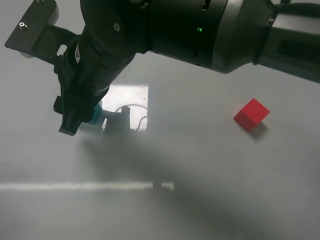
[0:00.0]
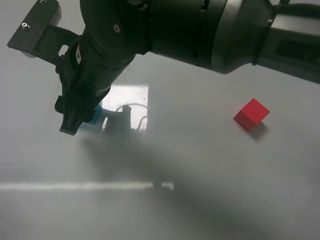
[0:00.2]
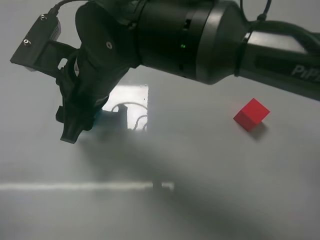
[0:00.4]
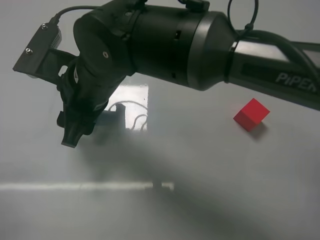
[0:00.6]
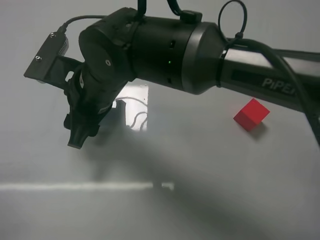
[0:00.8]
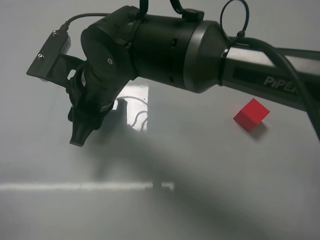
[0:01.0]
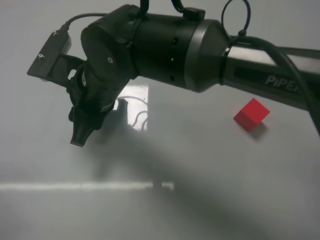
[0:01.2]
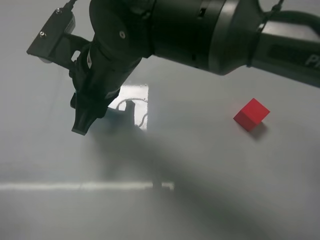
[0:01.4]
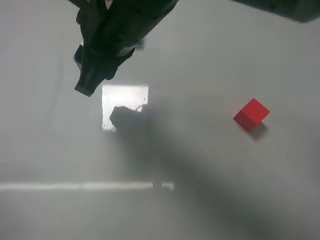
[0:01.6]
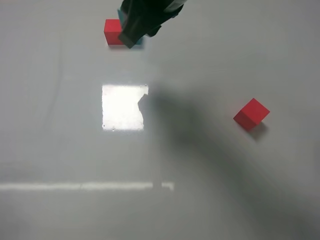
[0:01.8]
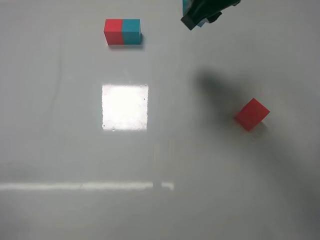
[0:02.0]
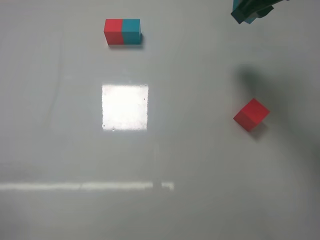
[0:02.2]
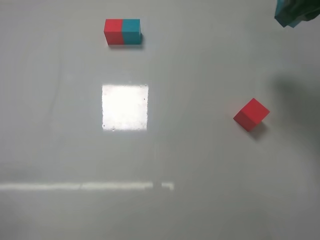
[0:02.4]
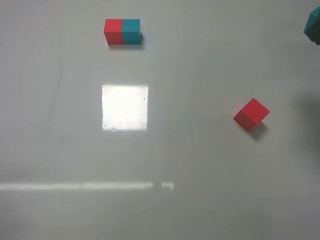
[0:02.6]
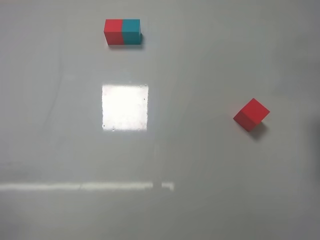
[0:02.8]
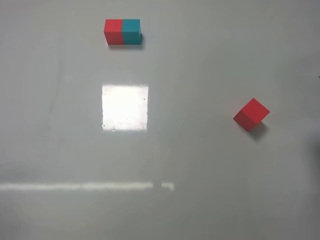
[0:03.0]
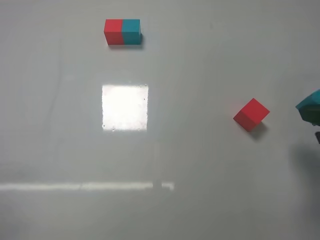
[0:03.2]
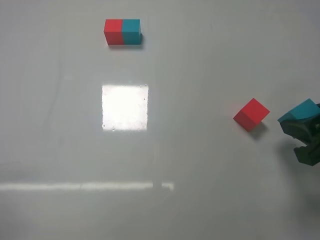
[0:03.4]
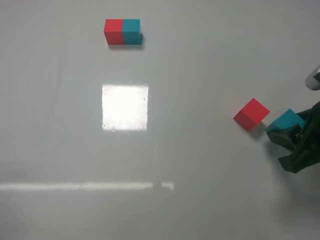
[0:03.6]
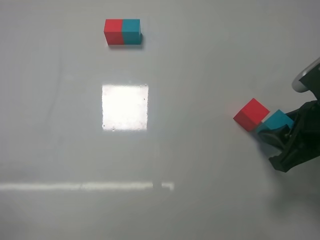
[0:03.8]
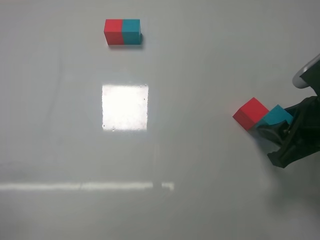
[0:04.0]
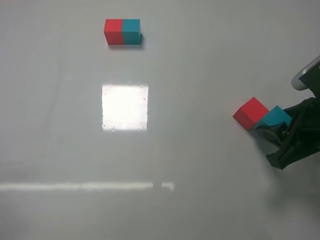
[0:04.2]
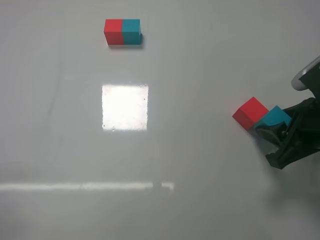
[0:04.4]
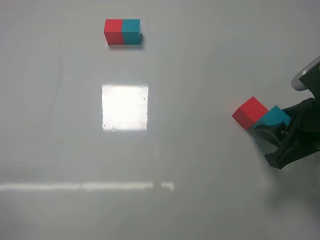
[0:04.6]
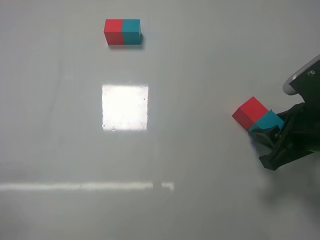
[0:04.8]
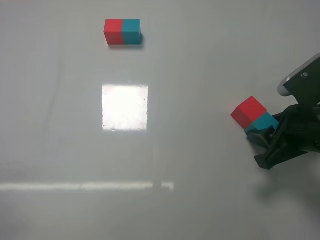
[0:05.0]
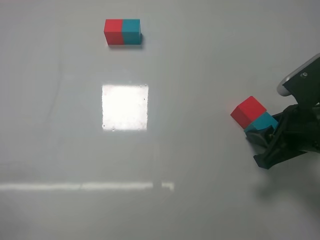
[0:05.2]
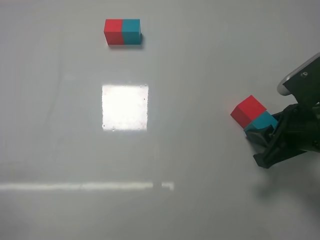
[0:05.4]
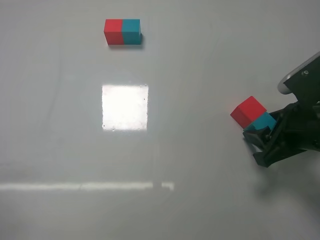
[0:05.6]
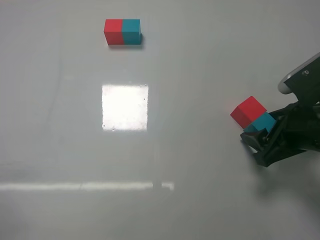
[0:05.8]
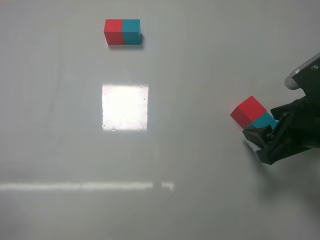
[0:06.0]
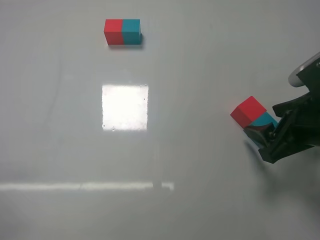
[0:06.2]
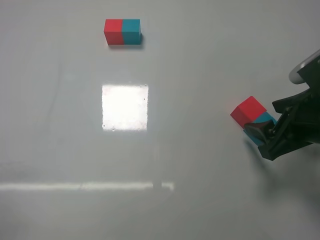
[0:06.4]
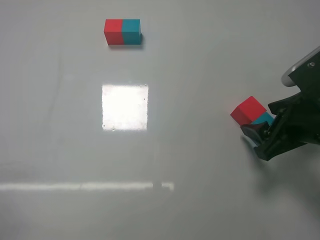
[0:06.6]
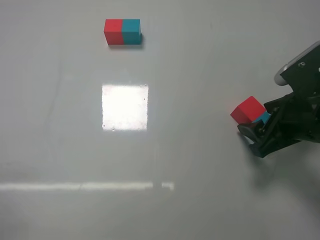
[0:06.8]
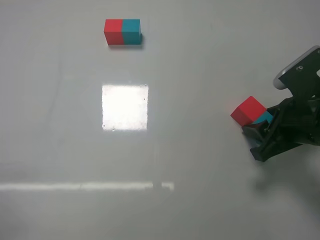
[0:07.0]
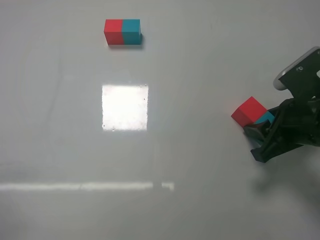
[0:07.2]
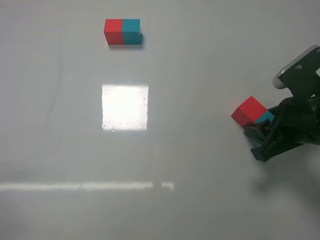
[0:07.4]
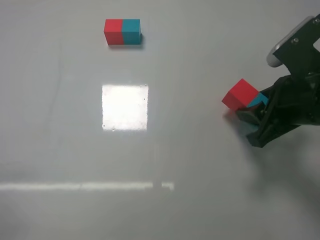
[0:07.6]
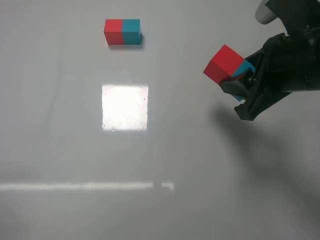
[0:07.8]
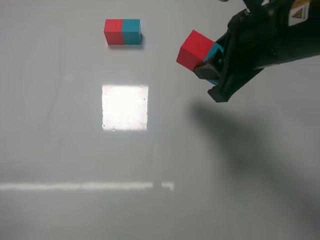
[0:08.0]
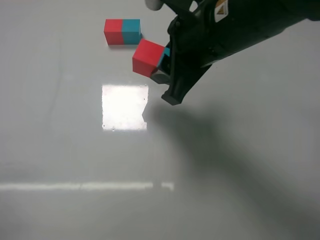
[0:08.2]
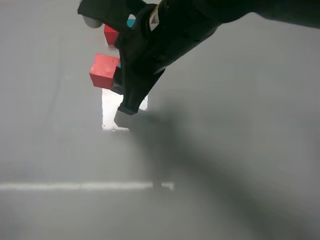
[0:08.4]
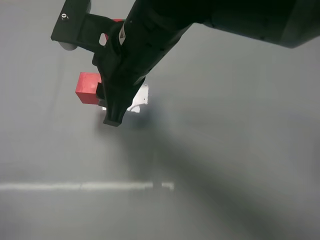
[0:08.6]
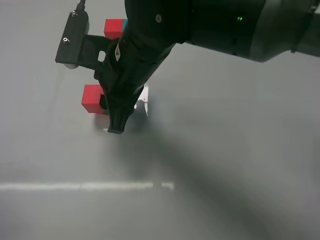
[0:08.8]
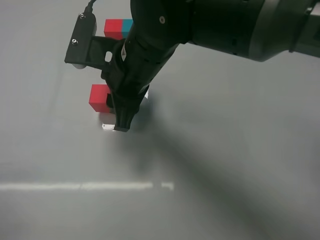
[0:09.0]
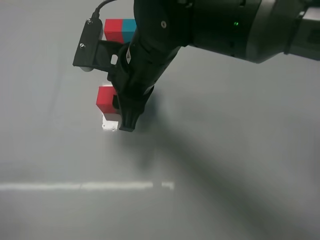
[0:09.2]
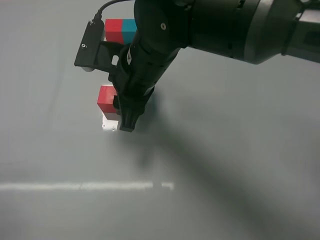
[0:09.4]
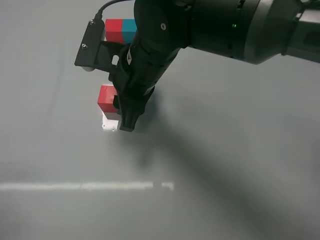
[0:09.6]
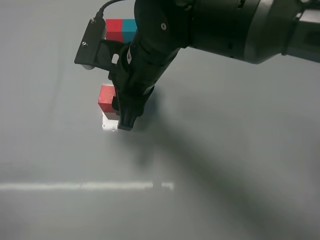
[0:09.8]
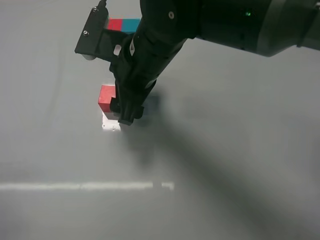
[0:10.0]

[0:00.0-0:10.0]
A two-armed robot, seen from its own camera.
Task of the whole recording: According to the building block template in front, assemble the scattered blocks together.
Step, 0:01.2 to 0:06.0: Put the blue cube on the right of the red cube with the right gripper.
Step, 0:06.2 to 0:10.0: Put the red cube and blue cube in the center of the table with the right gripper.
0:00.0 to 0:01.4: The right gripper closes up.
0:01.4 to 0:02.8: The right gripper shifts about 35 cm to the right.
0:02.8 to 0:04.2: The right gripper heads downward, covering about 15 cm.
0:04.2 to 0:05.8: The right gripper opens up.
0:05.8 to 0:07.2: The right gripper closes.
0:07.2 to 0:08.6: The right gripper heads to the left, covering about 25 cm.
0:08.6 to 0:10.0: The right gripper opens.

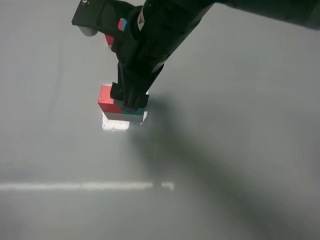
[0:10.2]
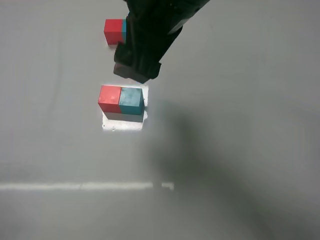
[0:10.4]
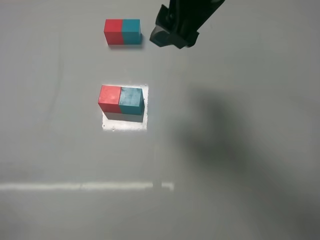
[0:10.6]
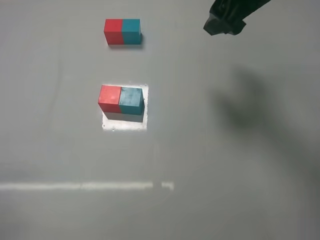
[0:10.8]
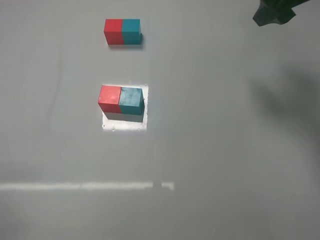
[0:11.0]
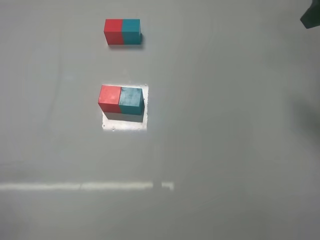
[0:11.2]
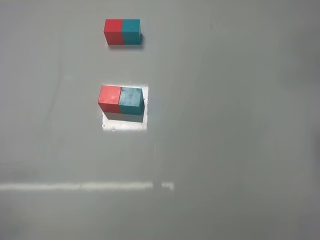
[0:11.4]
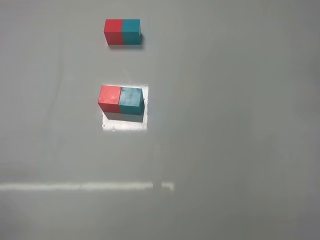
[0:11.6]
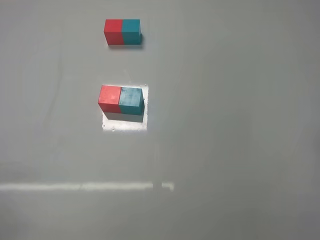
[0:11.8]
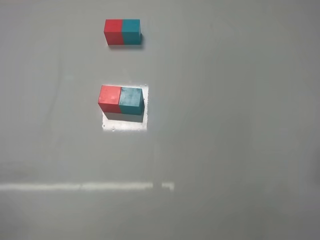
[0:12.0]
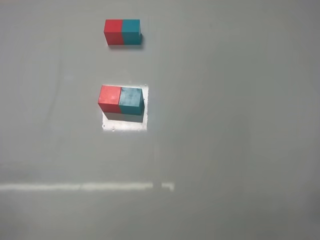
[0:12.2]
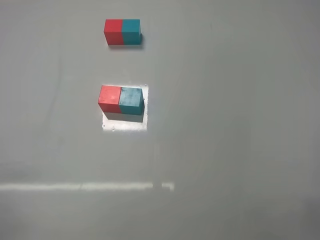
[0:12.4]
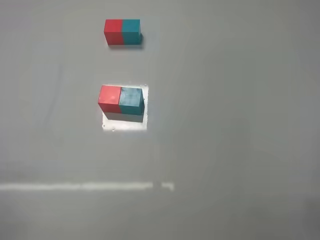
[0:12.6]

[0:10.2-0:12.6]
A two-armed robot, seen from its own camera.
Task of the whole recording: According to the building block template in front, assemble the scattered blocks together.
0:10.2 to 0:11.4: The right gripper heads to the right, covering approximately 30 cm.

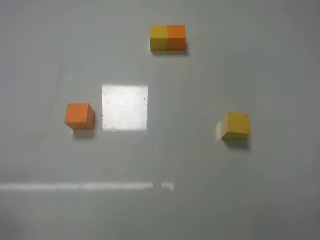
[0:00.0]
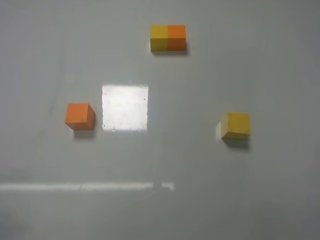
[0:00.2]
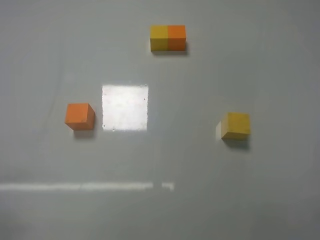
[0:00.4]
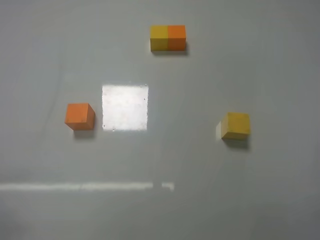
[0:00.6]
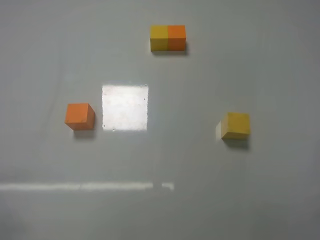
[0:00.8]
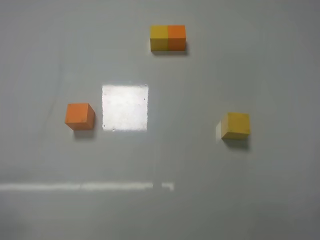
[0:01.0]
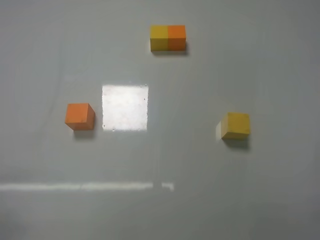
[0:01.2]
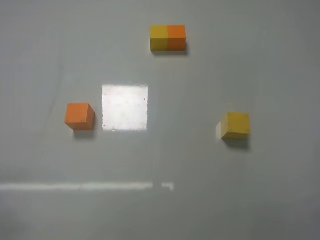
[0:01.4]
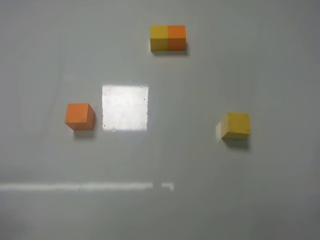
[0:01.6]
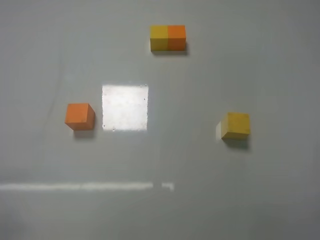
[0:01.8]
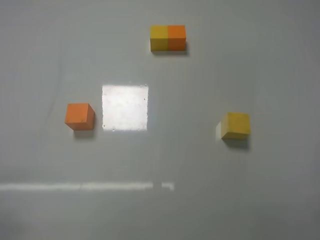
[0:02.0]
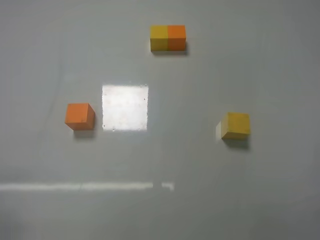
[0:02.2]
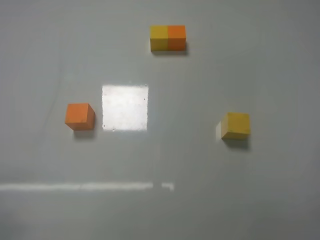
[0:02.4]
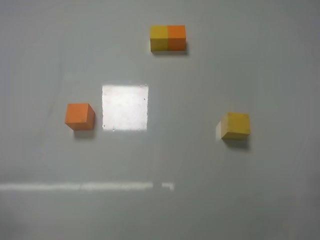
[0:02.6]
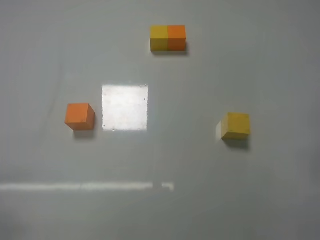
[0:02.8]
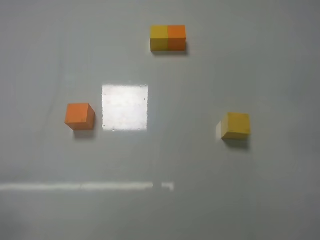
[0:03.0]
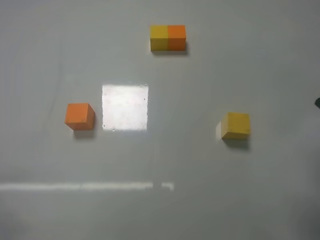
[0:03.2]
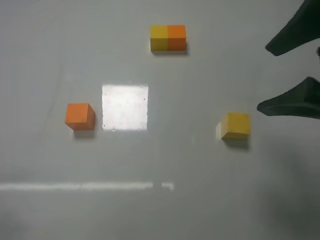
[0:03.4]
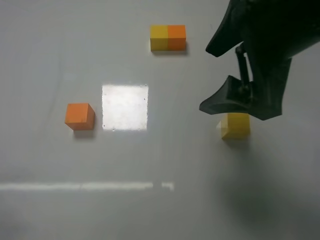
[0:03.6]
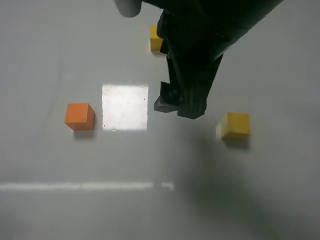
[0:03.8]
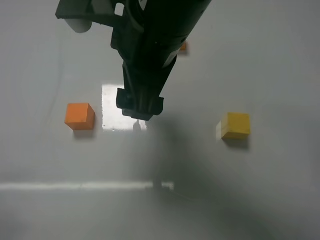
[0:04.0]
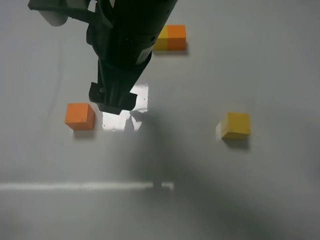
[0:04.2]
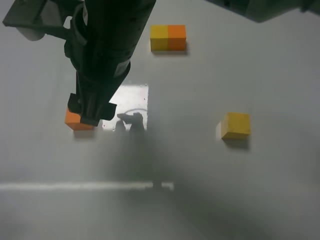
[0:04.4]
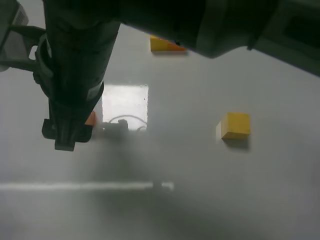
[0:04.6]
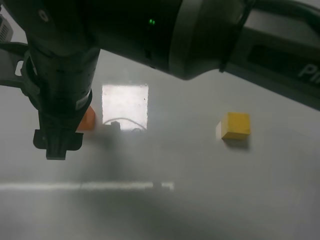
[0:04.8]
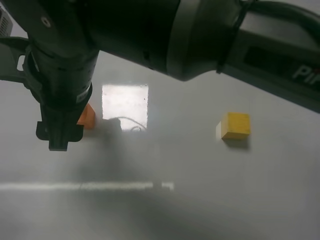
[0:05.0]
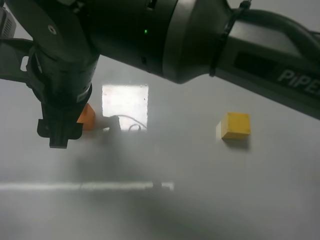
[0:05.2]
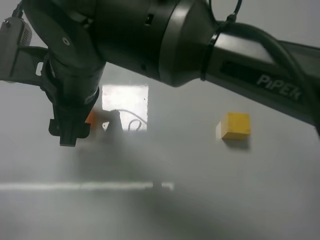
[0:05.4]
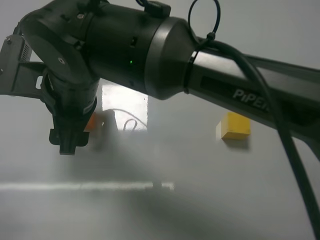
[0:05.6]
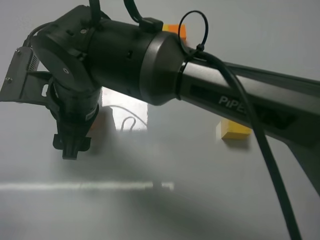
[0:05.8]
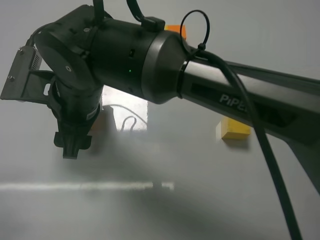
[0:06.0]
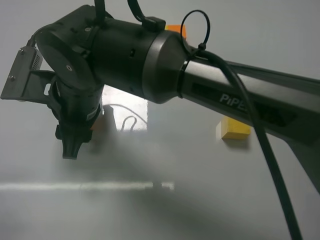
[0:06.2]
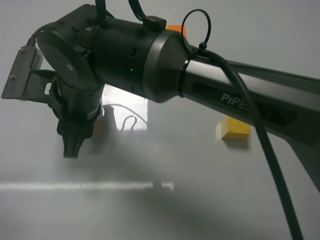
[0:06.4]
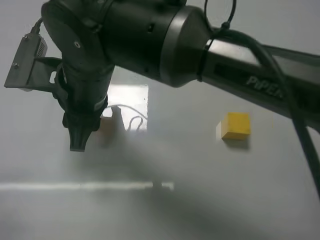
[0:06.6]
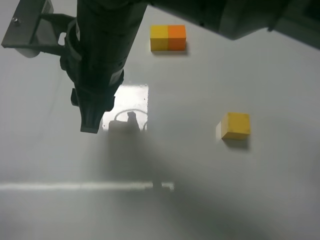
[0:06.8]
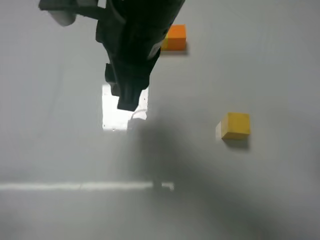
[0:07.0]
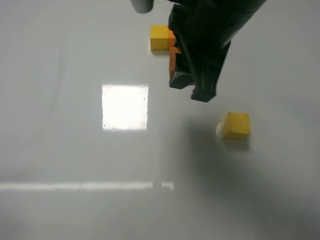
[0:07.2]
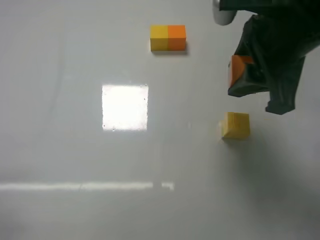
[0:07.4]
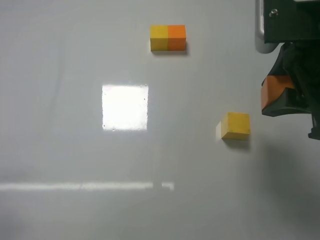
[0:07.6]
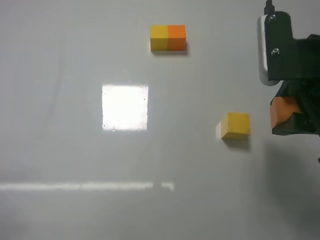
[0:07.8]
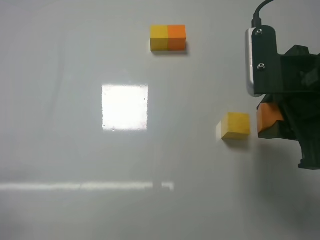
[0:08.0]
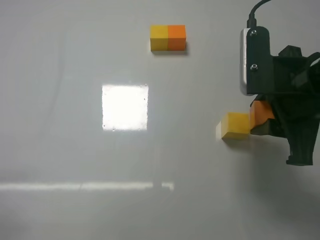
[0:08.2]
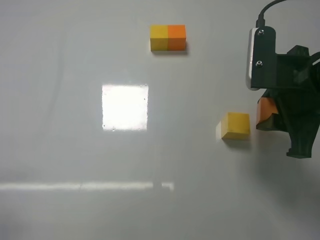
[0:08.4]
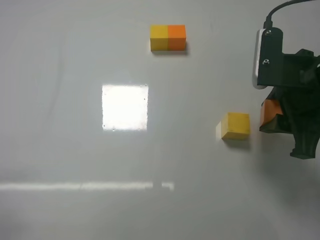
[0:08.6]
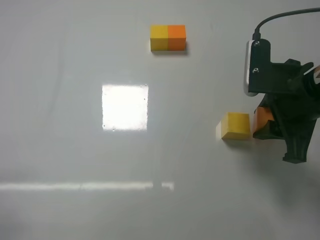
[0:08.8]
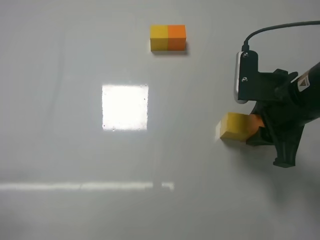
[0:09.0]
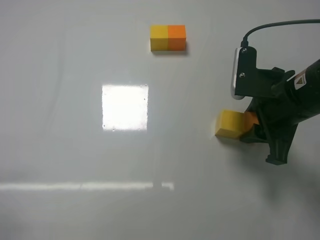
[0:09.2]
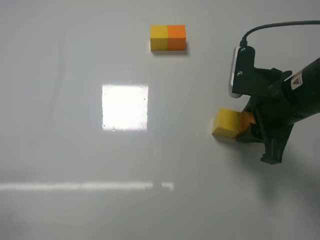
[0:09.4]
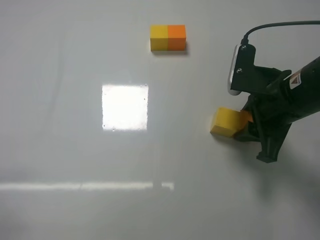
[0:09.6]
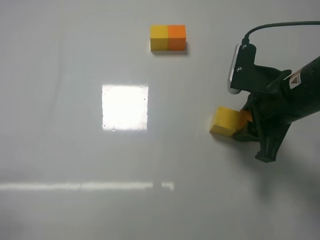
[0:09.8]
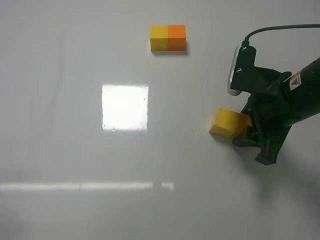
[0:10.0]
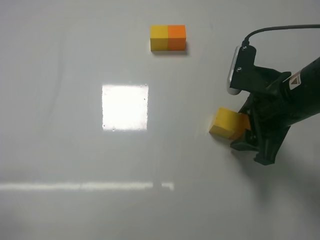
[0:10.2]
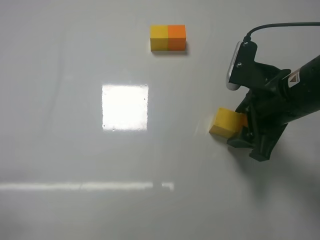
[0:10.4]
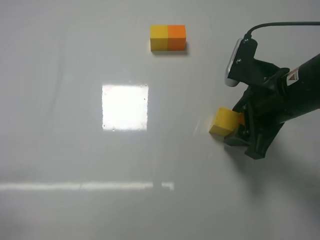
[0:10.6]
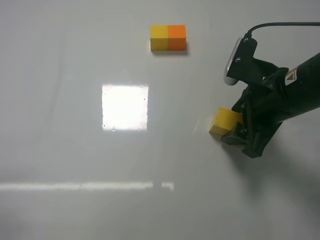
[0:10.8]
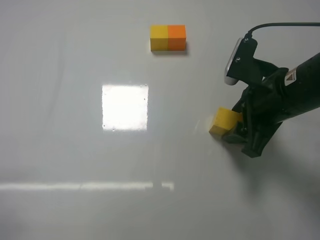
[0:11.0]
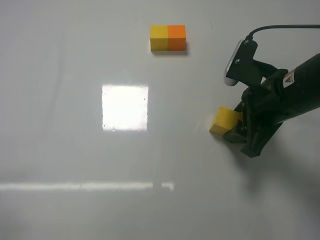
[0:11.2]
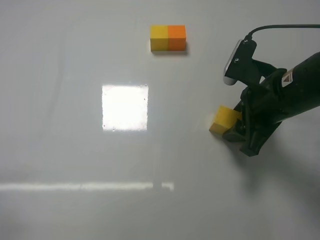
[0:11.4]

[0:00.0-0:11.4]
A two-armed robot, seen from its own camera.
Task of the whole recording: According to the building block template in front, assemble the scattered blocks together.
Step, 0:00.0 to 0:06.2: Grasp the orange block with right gripper.
Step, 0:06.4 to 0:10.2: Put the orange cube on the right of the yellow cube with the right gripper.
0:00.0 to 0:01.4: Both grippers stay put.
0:02.8 to 0:04.2: The right gripper is displaced to the left and forward by roughly 35 cm.
0:04.2 to 0:05.6: The right gripper is displaced to the left and downward by some 10 cm.
0:05.6 to 0:07.2: The right gripper travels to the right and upward by approximately 20 cm, and closes its fingers.
0:07.2 to 0:08.6: The right gripper heads to the right and downward, covering some 15 cm.
0:08.6 to 0:11.4: The grippers stay close to where they were, moving slightly.
